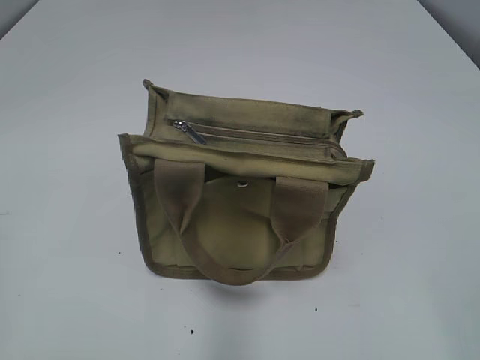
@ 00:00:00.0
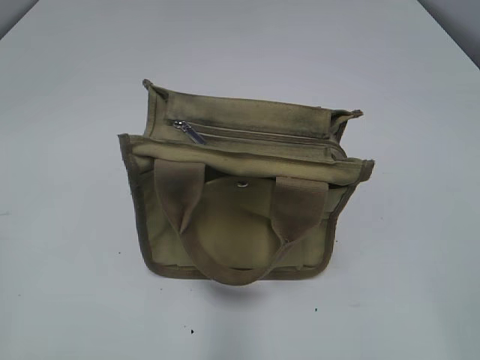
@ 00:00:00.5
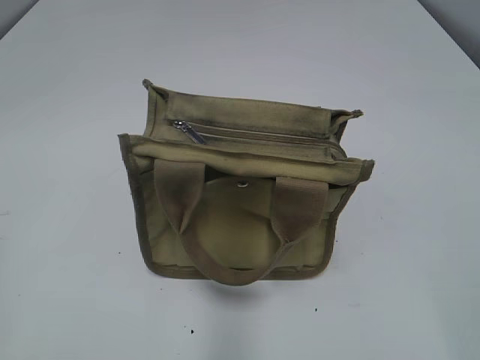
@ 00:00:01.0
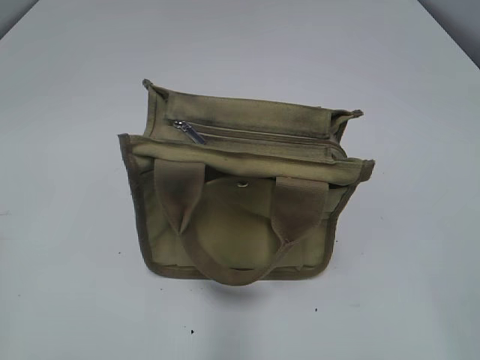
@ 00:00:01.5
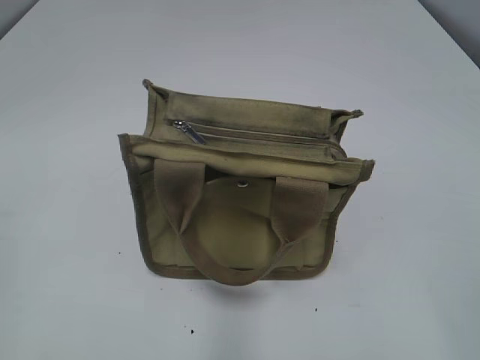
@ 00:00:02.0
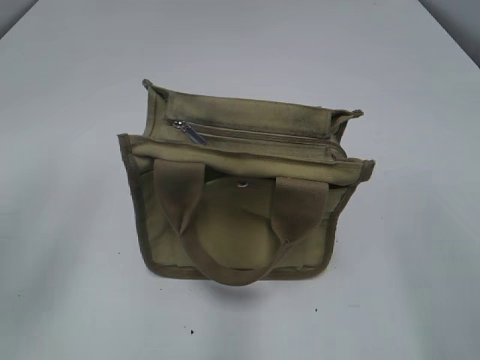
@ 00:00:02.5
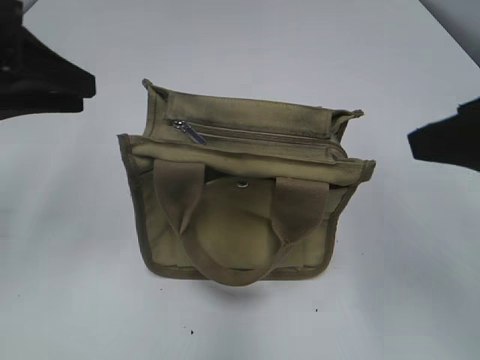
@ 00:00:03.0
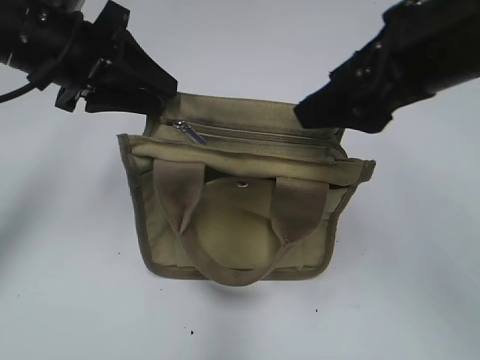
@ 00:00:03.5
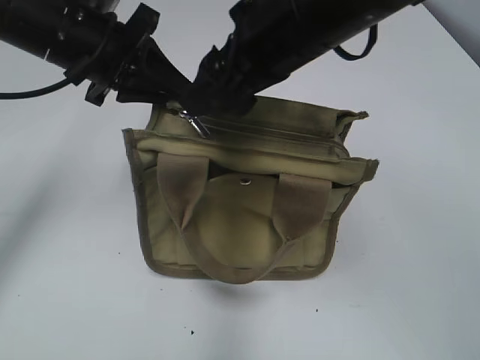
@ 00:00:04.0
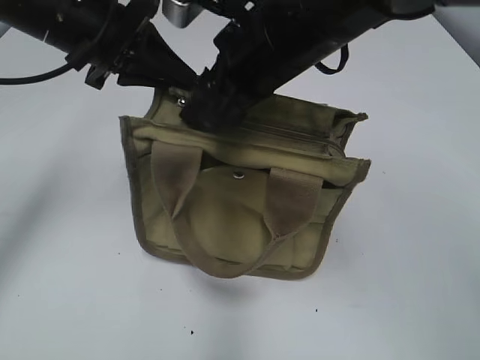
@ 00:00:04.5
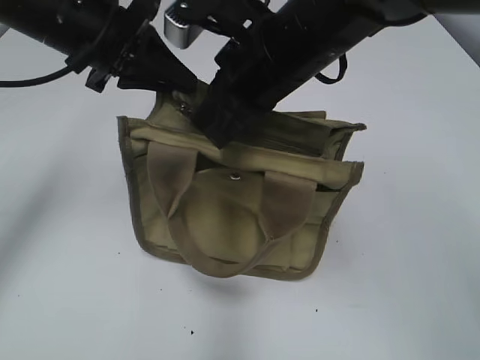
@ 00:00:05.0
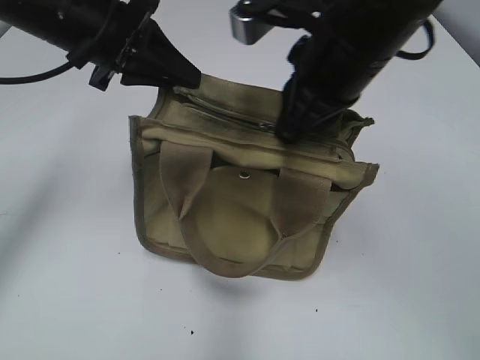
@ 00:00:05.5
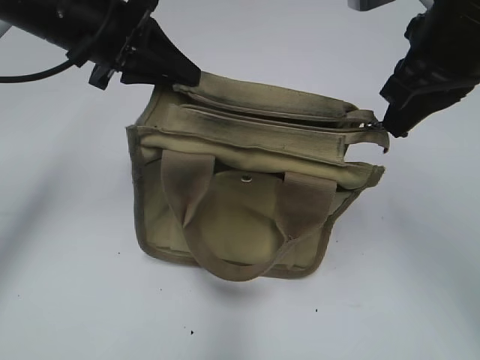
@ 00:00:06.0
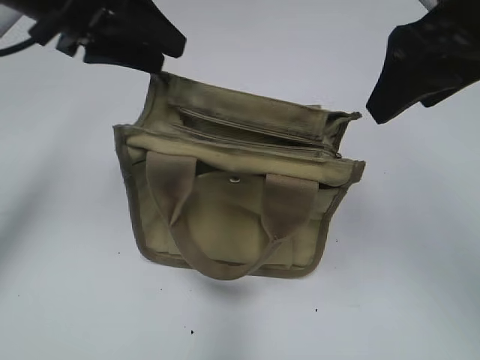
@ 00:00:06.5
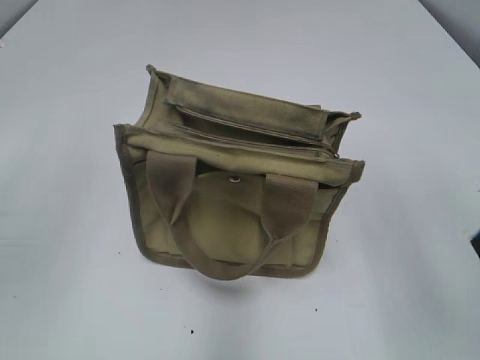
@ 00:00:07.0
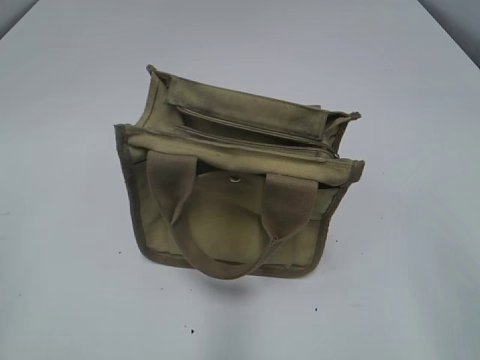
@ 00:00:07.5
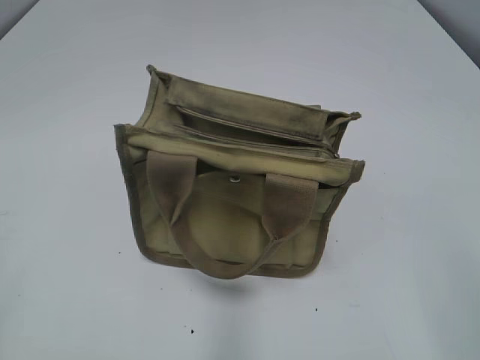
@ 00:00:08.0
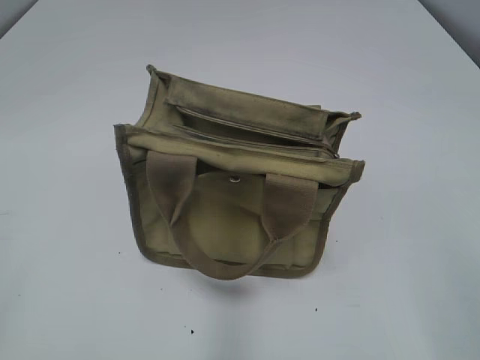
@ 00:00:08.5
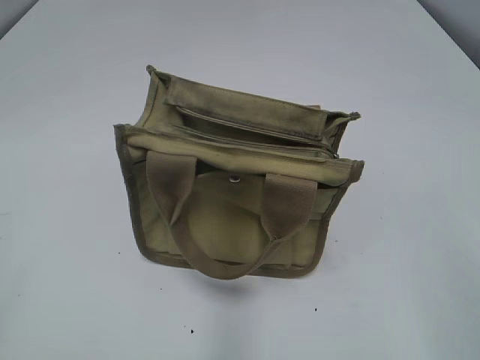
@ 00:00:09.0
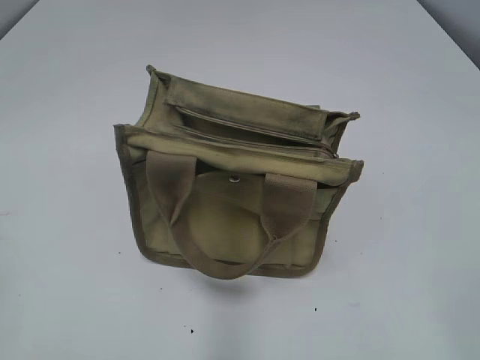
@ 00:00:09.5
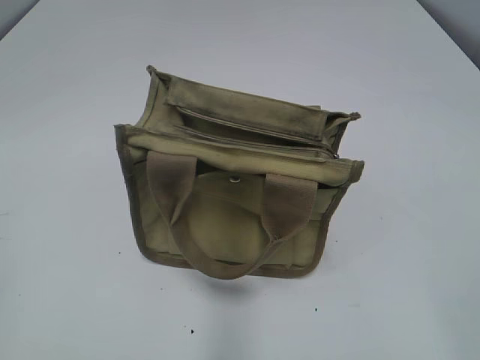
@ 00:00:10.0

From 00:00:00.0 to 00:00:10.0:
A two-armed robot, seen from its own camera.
Step, from 00:00:00.0 to 00:00:06.0: Pull open the zipper with your right hand.
From 00:00:02.0 to 00:00:04.0: The right gripper moves forward and to the left, roughly 35 cm, while the left gripper moves forward and to the right, roughly 35 cm.
From 00:00:04.0 to 00:00:06.0: The right gripper travels to the right by about 10 cm, and closes.
From 00:00:06.0 to 00:00:08.0: The right gripper travels backward by approximately 25 cm, and opens its fingers, while the left gripper travels backward and to the left by some 40 cm, and opens up.
